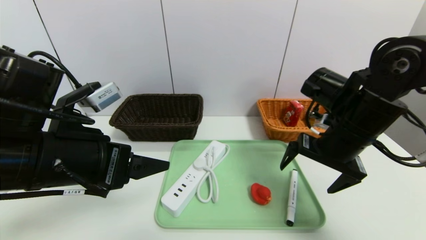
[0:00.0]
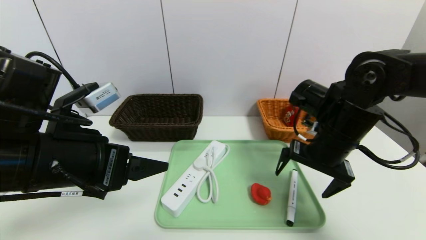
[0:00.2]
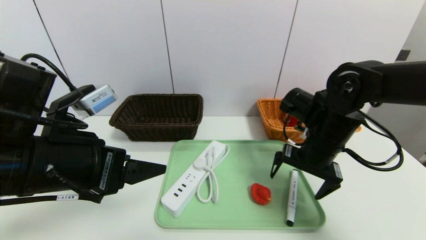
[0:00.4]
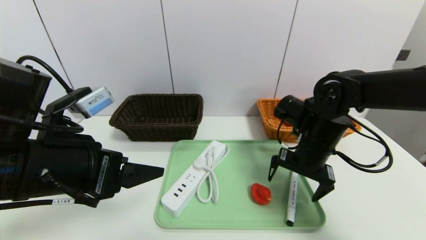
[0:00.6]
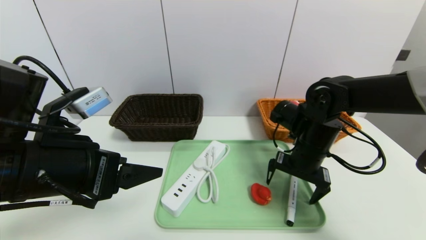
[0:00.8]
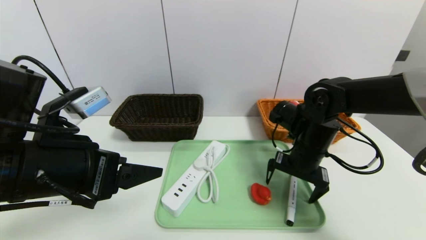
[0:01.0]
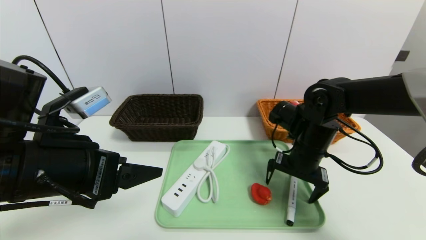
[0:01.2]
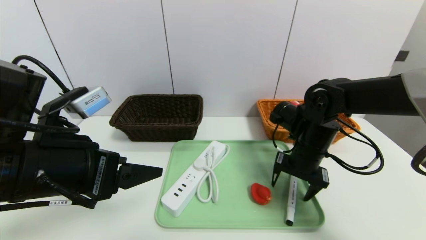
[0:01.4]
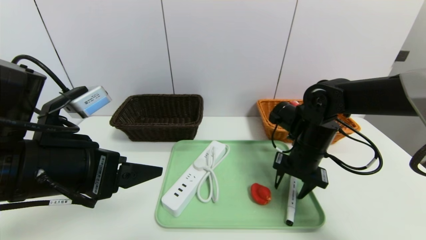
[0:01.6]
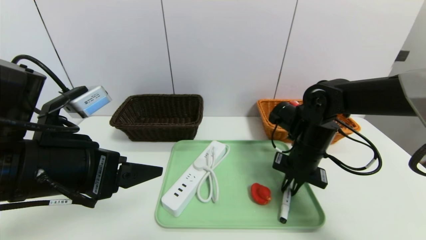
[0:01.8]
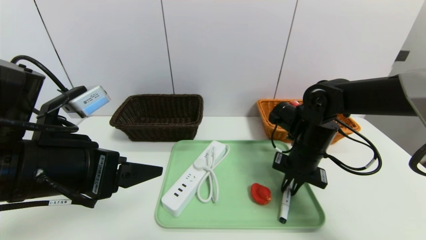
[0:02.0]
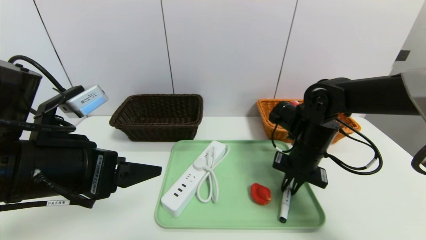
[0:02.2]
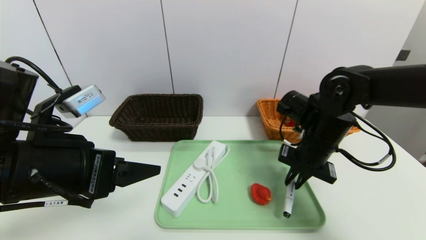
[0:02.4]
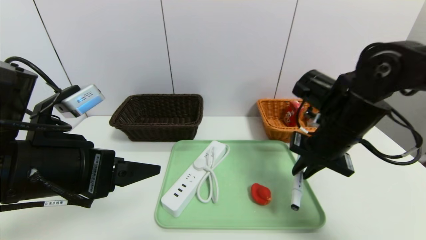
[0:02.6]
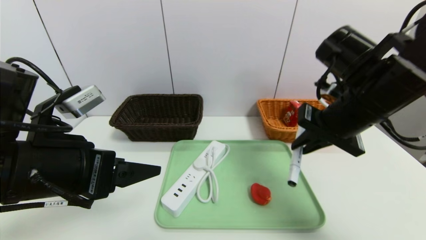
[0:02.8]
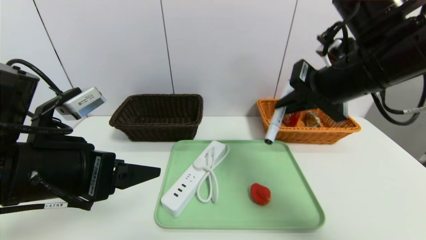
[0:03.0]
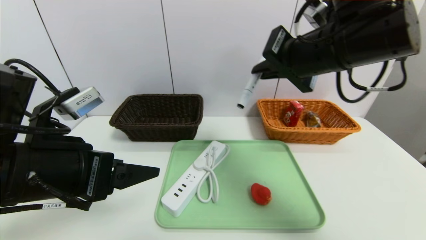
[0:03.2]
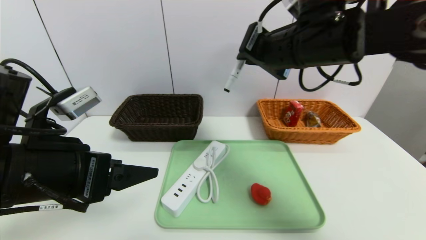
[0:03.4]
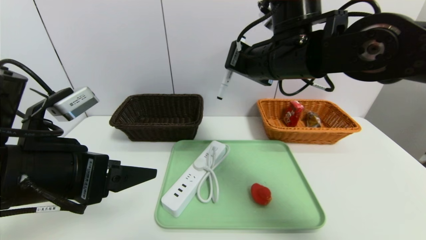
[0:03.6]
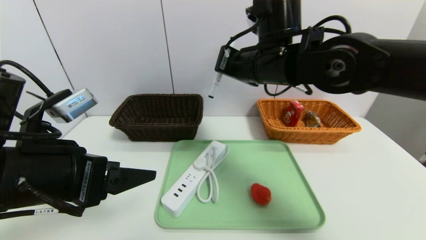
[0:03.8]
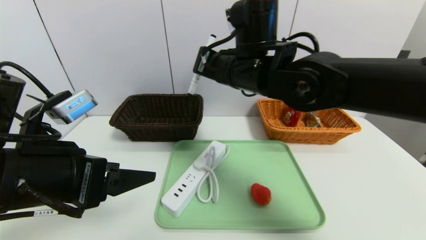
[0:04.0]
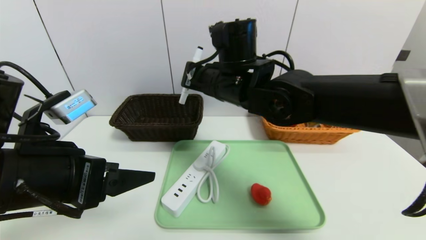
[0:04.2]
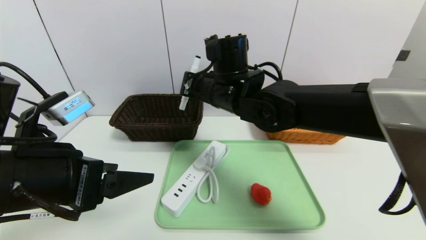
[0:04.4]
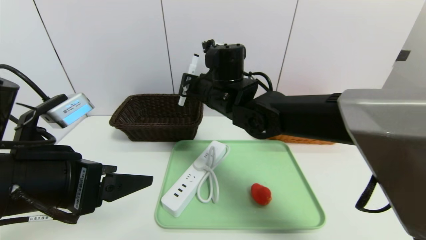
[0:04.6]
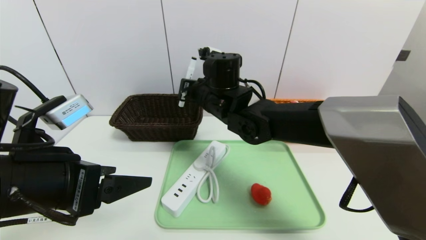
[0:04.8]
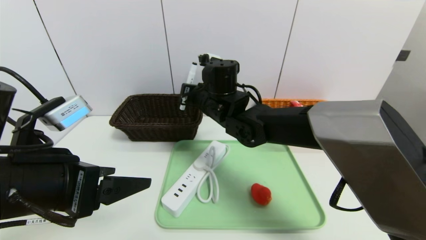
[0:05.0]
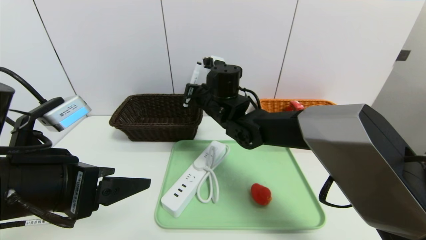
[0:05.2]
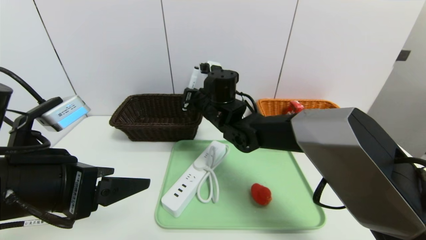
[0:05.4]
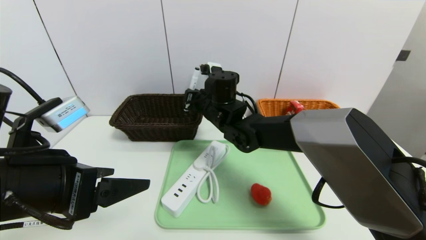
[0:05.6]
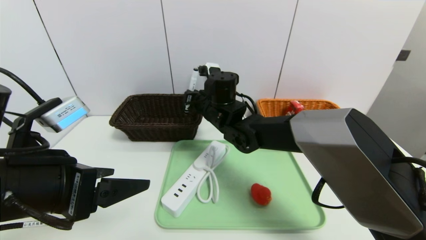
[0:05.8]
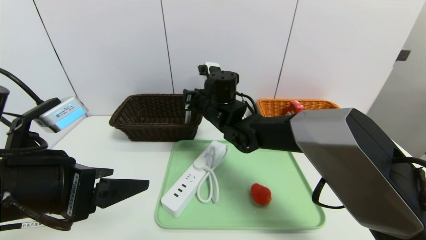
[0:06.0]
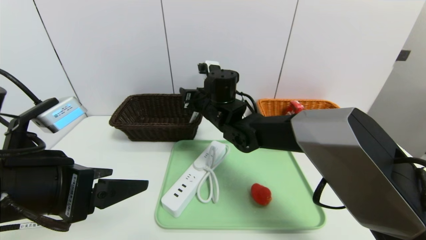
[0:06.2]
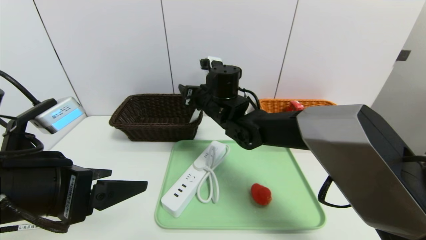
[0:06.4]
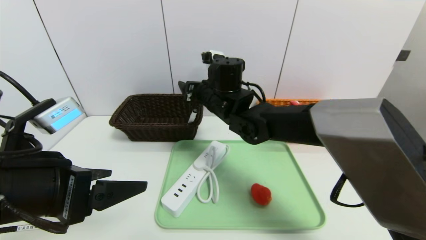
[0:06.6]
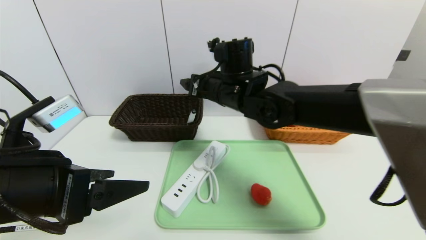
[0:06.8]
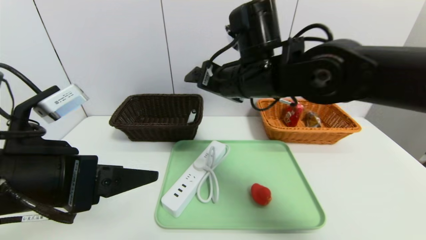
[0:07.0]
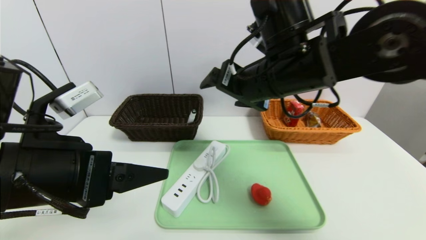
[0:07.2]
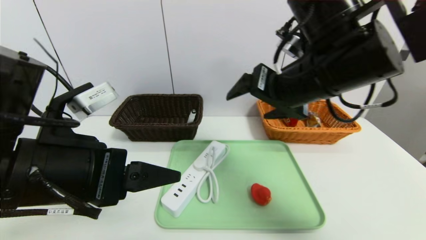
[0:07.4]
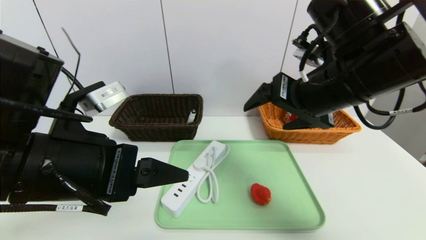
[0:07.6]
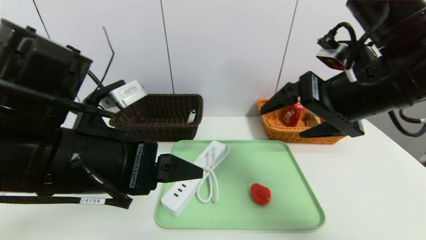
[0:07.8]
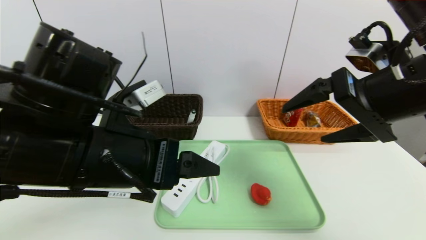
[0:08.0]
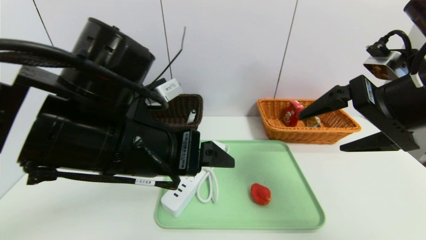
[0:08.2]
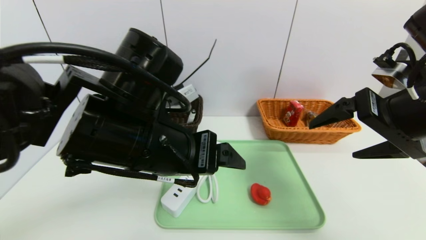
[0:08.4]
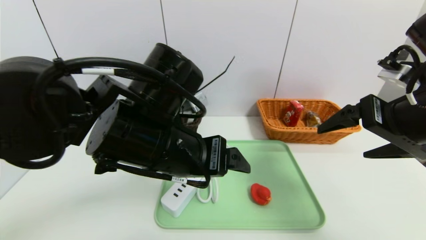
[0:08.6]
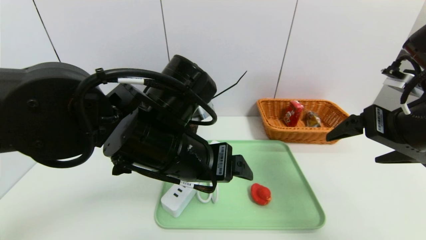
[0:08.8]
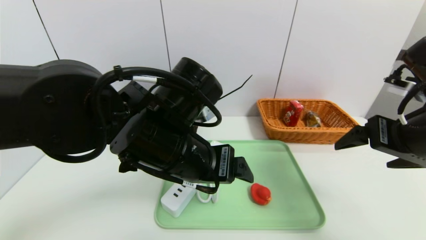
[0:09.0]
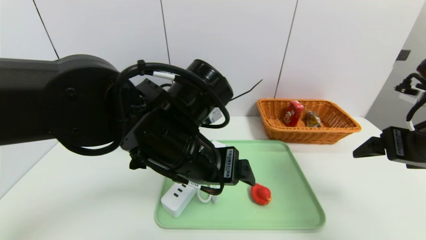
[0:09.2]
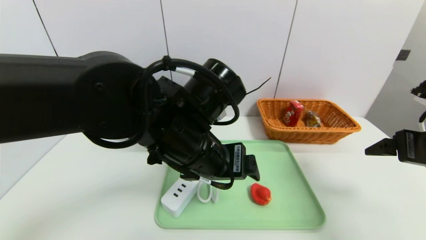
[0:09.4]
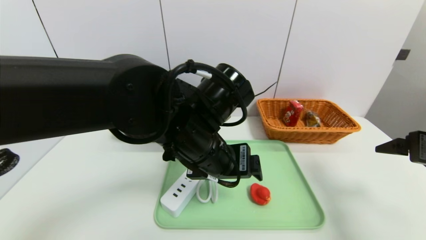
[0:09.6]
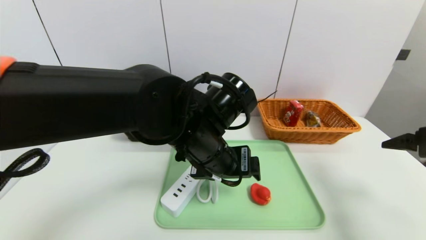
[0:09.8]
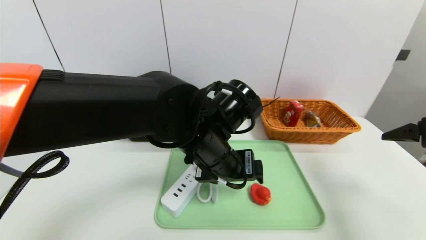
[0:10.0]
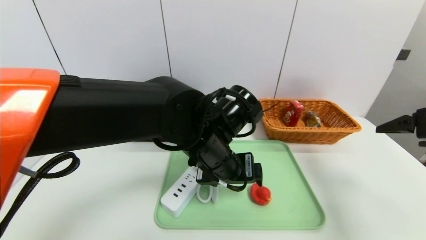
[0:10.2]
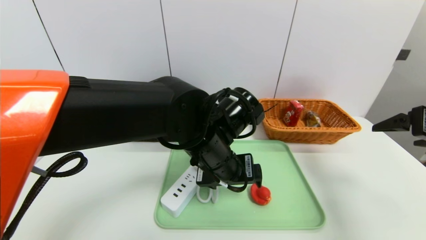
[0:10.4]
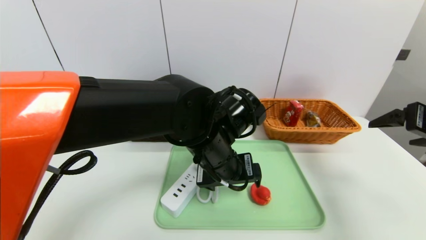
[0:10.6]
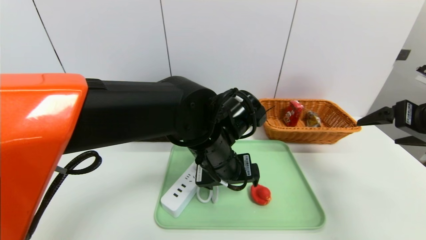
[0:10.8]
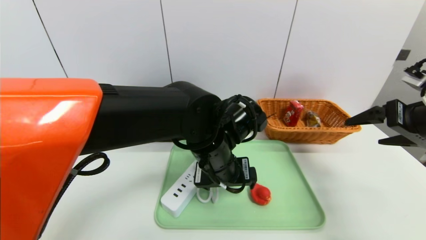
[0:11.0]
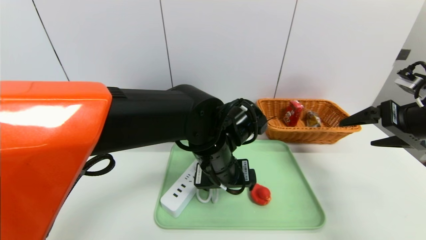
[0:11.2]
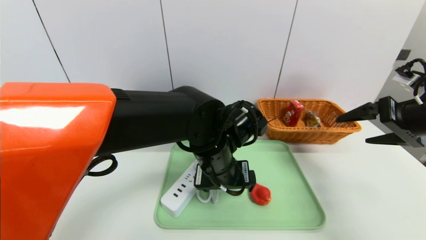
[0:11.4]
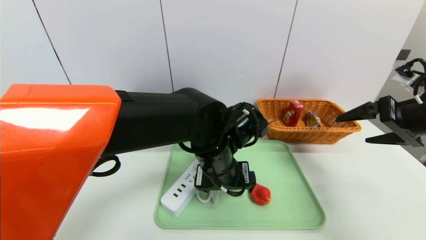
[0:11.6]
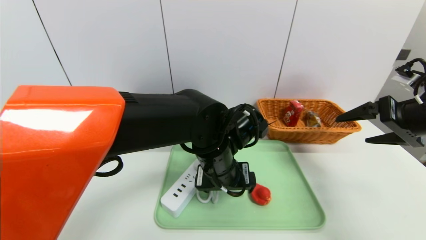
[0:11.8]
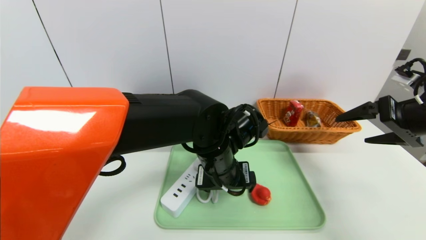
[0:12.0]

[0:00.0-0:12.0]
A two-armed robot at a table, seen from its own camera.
Task of the whole recording: place the food in the right basket with the right gripper, and place the non food items in the left basket with the left gripper.
0:00.0 to 0:01.6: The right gripper goes approximately 10 cm downward and forward, and closes its fingers.
0:01.6 to 0:03.0: The right gripper heads upward, covering about 20 cm, and closes its fingers.
0:03.0 to 0:04.4: The right gripper moves to the left and forward, some 20 cm.
0:04.4 to 0:06.0: The right gripper is displaced downward and forward by some 10 cm.
0:06.0 to 0:07.6: The right gripper goes approximately 25 cm to the right, backward and upward, and opens up. The left gripper shifts by about 5 cm.
0:07.6 to 0:09.0: The right gripper travels to the right by approximately 10 cm, while the left gripper heads to the right and forward, covering some 10 cm.
0:09.0 to 0:10.4: The left gripper shifts about 5 cm to the right. The right gripper is displaced to the right by roughly 10 cm.

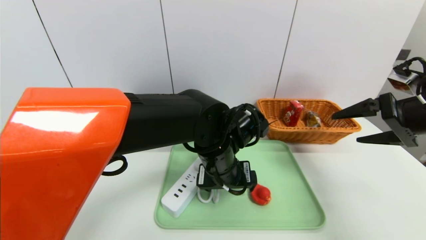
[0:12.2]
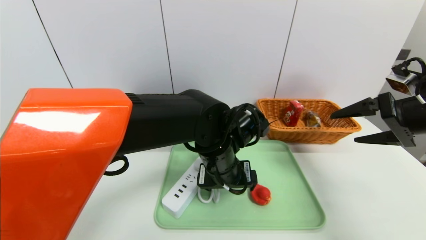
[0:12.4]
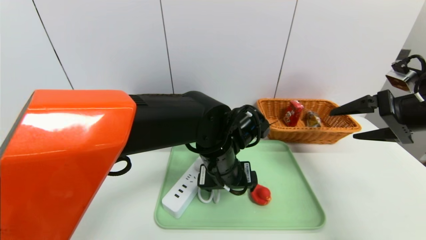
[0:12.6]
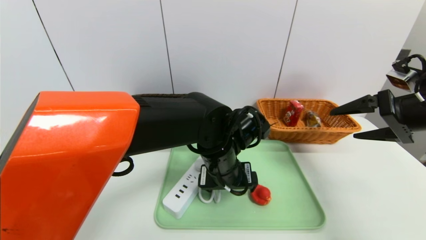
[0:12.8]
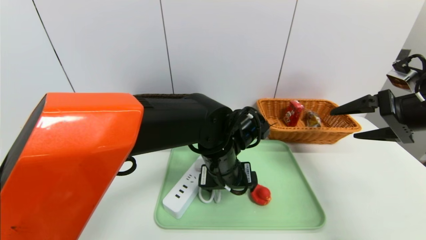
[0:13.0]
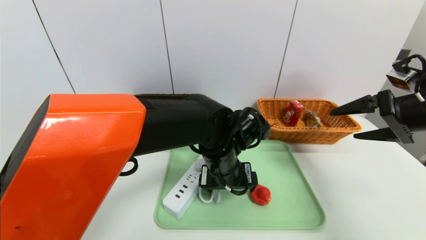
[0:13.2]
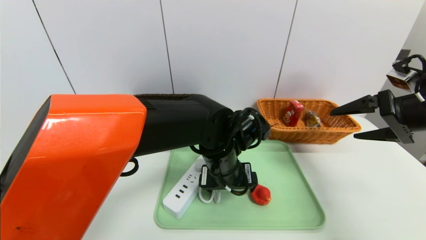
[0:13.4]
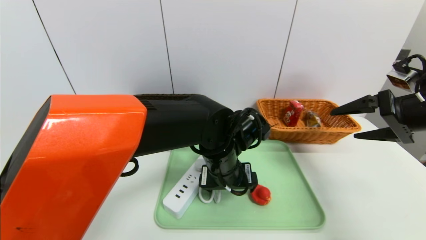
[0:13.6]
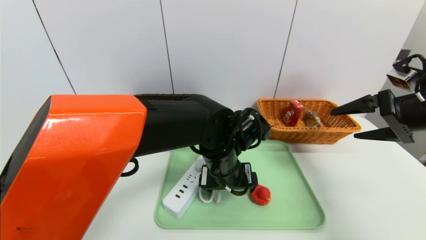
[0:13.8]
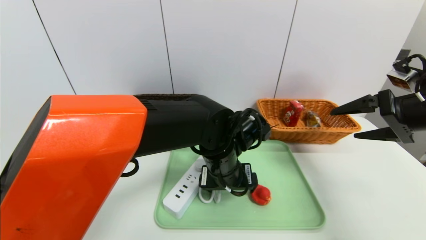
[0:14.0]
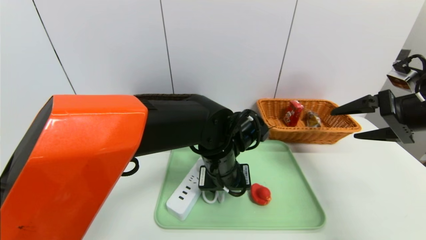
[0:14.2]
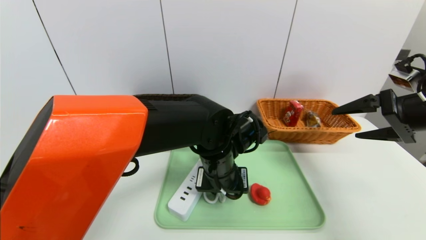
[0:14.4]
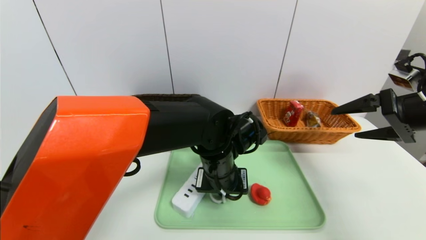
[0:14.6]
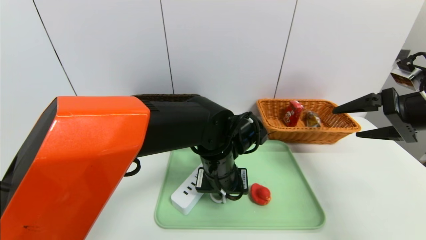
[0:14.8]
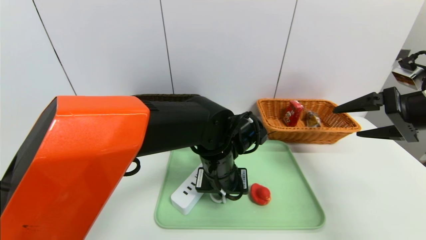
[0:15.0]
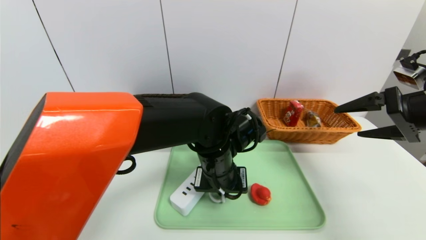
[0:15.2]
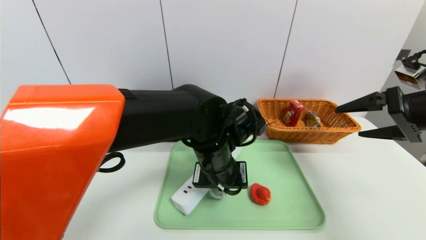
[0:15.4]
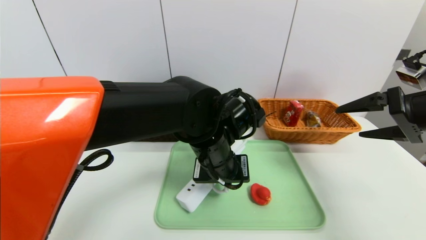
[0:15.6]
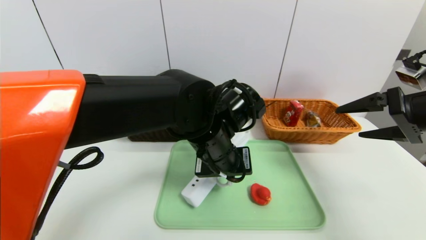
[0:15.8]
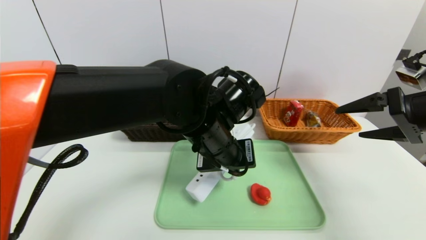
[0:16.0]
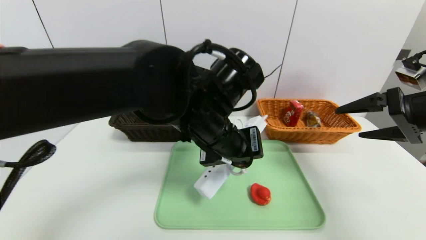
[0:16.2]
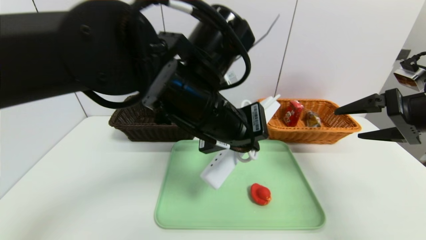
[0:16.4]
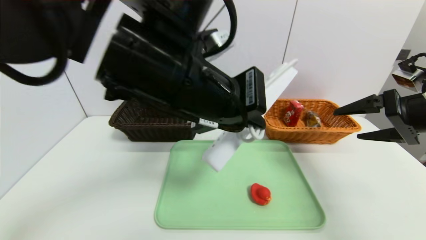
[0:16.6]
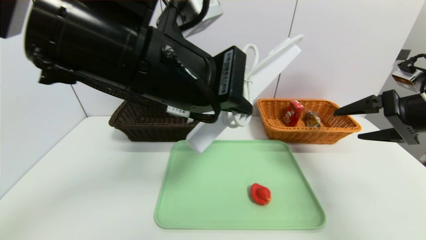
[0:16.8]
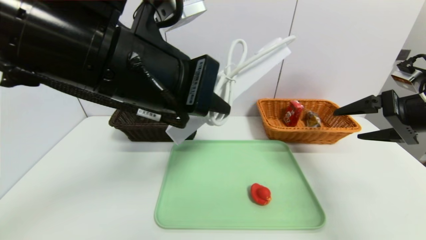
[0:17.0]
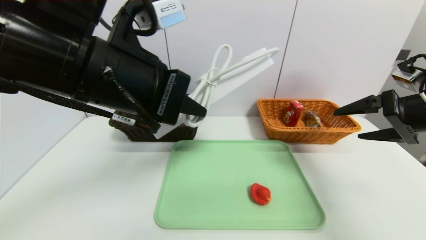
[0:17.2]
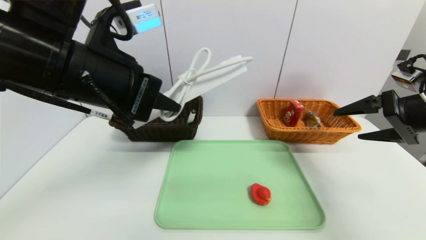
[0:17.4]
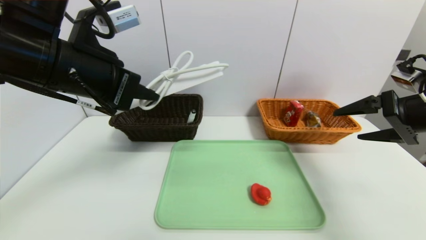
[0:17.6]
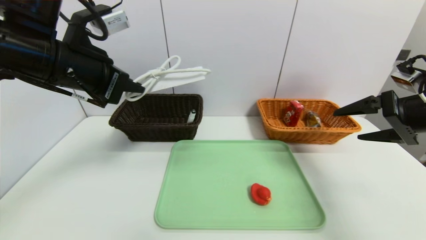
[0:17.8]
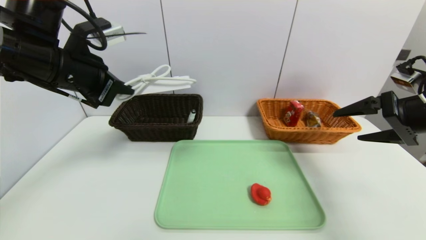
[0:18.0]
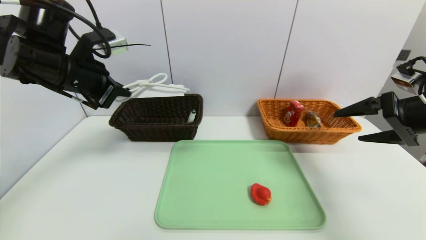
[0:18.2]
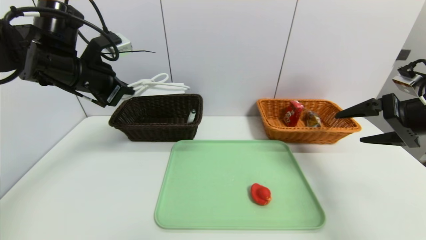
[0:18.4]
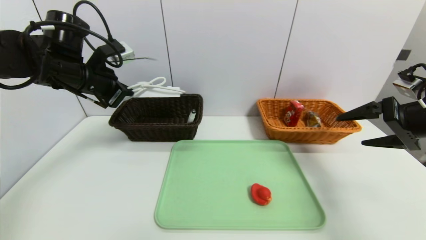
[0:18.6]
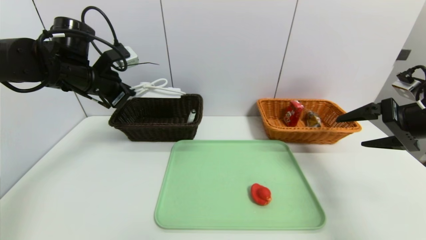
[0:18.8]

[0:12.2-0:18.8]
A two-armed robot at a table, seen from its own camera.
Task of the whole recording: place the food in the right basket with the right gripper, and place the non food items in the left basket with the left gripper.
0:12.2 to 0:13.8: There are only small adjustments of the grippers.
0:13.8 to 0:15.4: The left gripper closes up.
0:15.4 to 0:17.2: The left gripper heads upward, to the left and backward, covering about 20 cm.
0:17.2 to 0:18.8: The left gripper is displaced forward and to the left by some 20 cm.
